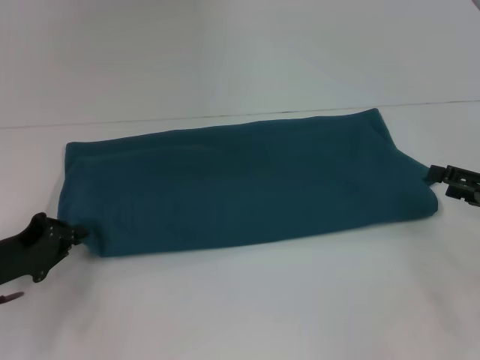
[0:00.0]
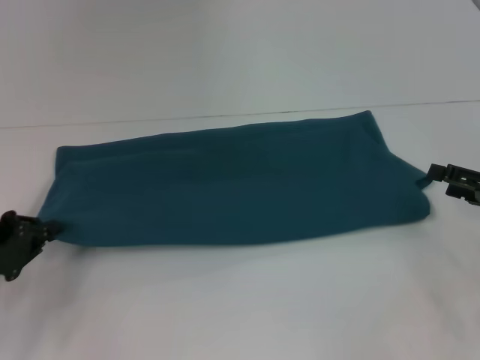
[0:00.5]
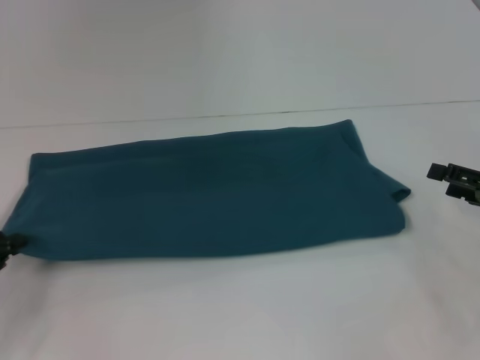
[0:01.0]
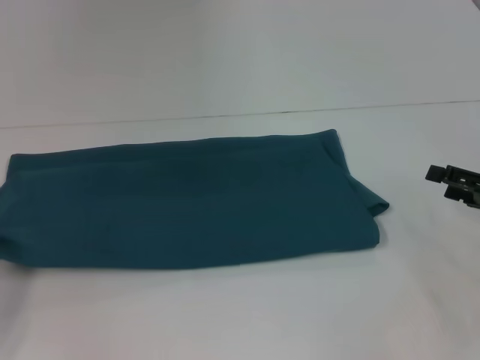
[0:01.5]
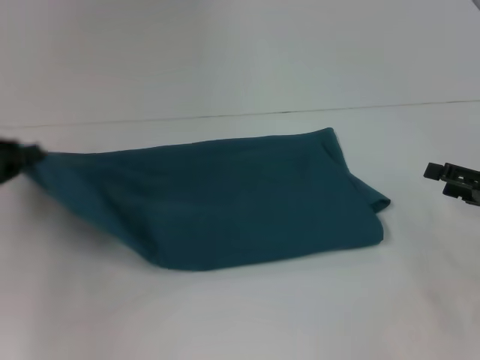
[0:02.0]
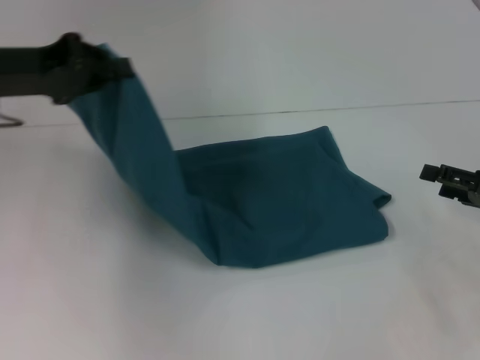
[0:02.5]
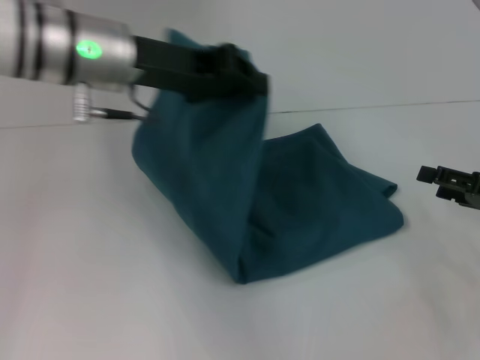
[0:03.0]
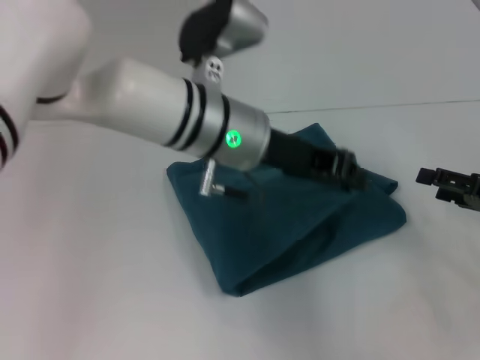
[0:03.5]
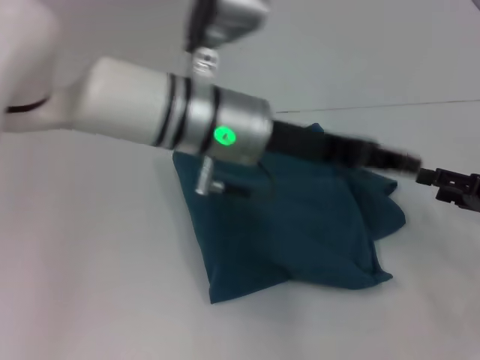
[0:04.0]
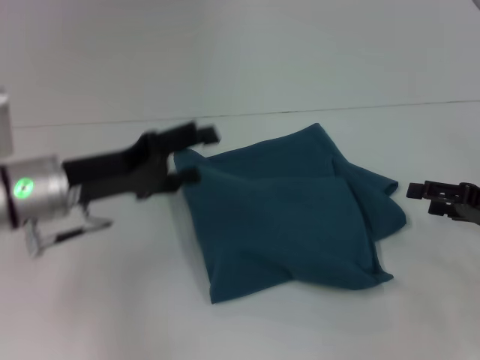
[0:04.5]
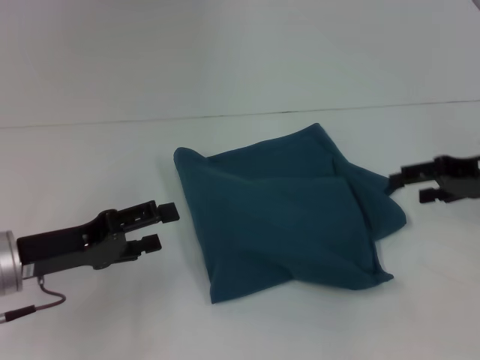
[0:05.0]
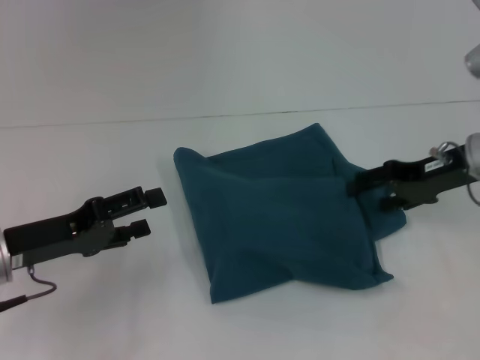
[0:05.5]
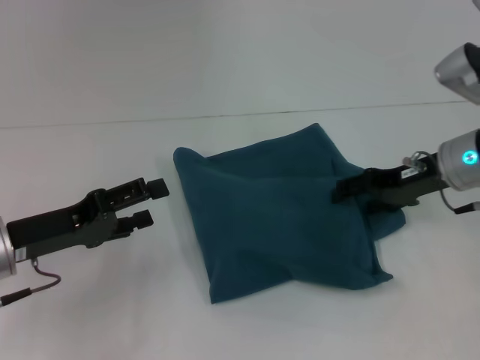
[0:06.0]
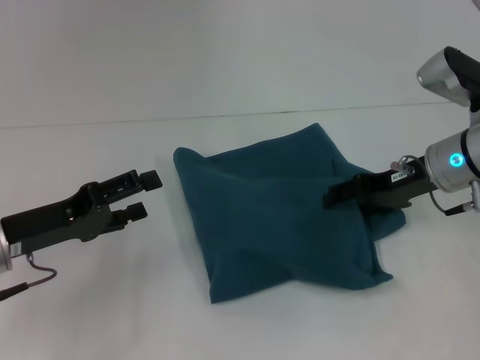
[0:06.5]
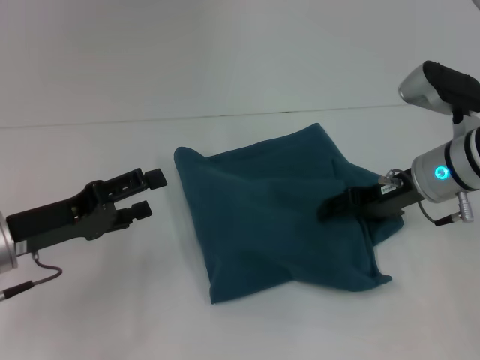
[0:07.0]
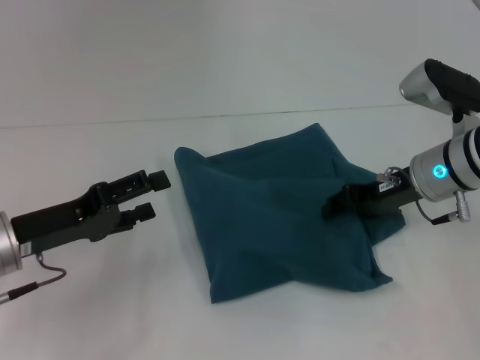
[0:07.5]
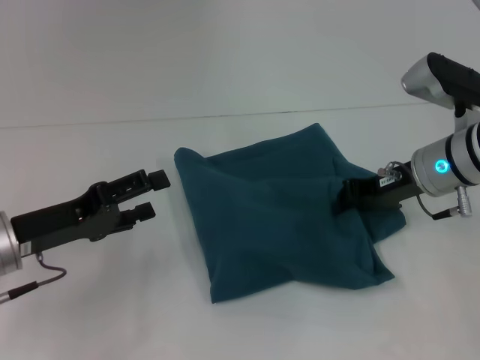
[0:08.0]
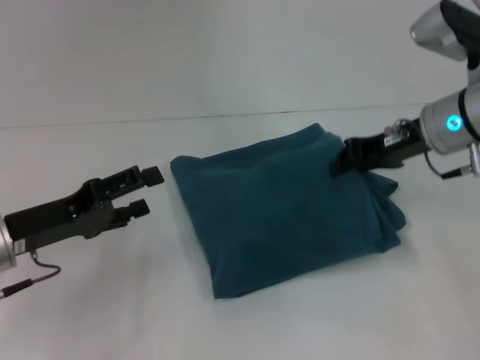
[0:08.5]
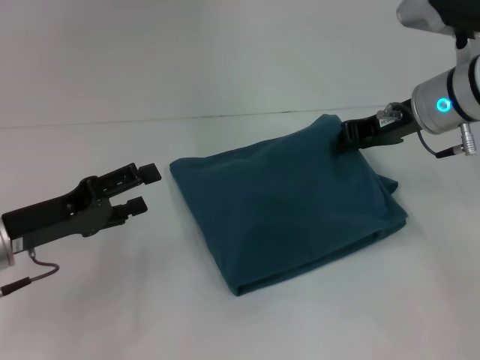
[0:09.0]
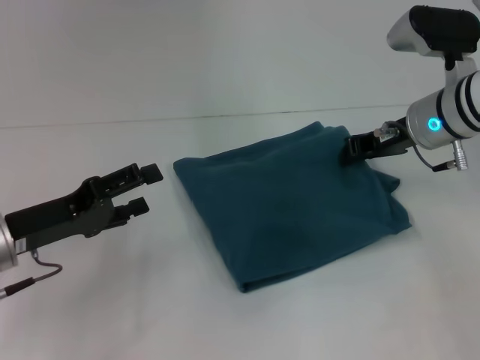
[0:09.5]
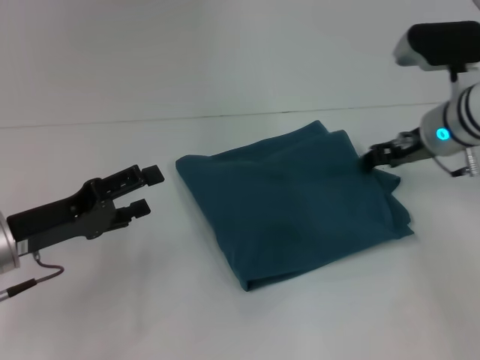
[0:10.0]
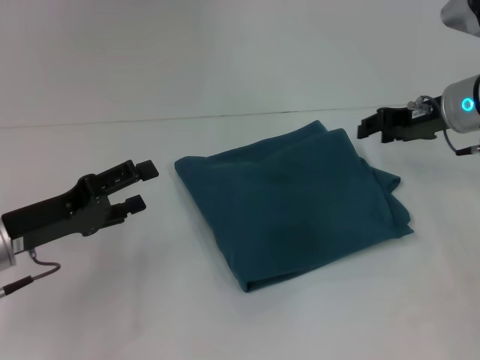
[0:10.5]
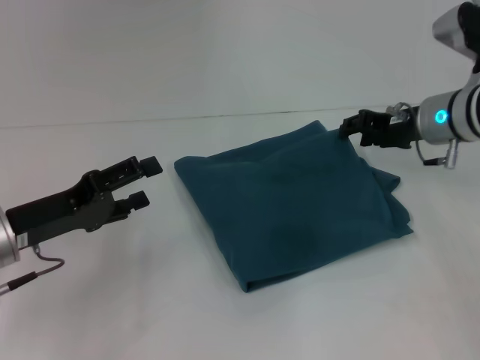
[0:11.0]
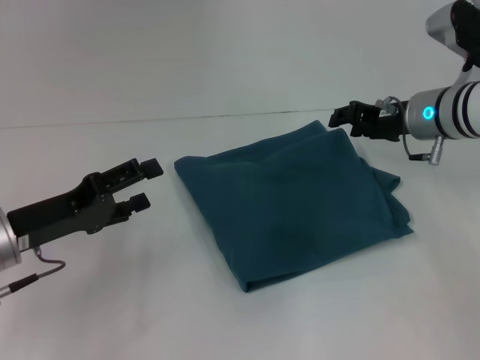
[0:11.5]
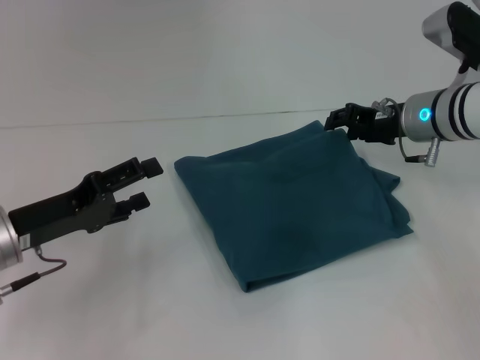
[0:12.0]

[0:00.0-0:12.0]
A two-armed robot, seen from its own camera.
Step, 0:00.0 to 0:04.0: Fold the clothes to the left.
0:00.0 to 0:02.0: The left gripper heads upward, covering some 10 cm.
0:02.0 to 0:04.0: The left gripper moves to the right, approximately 30 cm, and opens its fingers.
0:04.0 to 0:06.0: The right gripper heads to the left and forward, covering some 15 cm. The left gripper travels to the left and downward by some 25 cm, and opens up.
0:06.0 to 0:08.0: The right gripper closes its fingers.

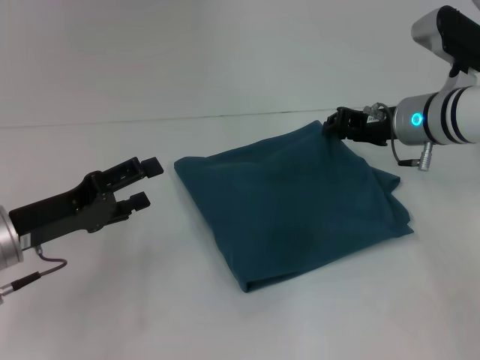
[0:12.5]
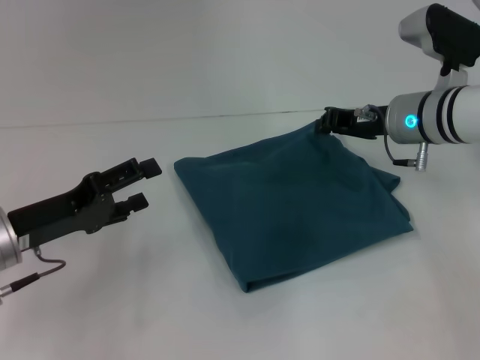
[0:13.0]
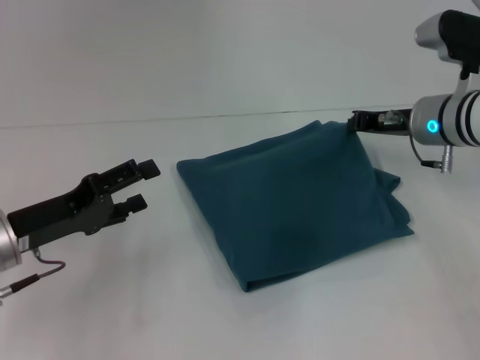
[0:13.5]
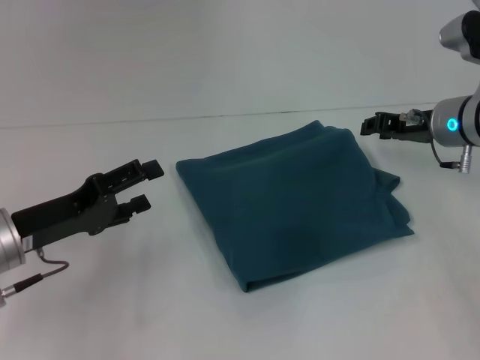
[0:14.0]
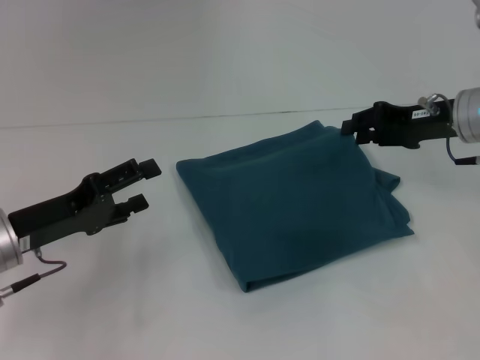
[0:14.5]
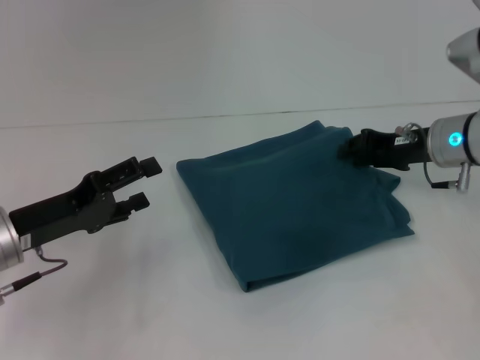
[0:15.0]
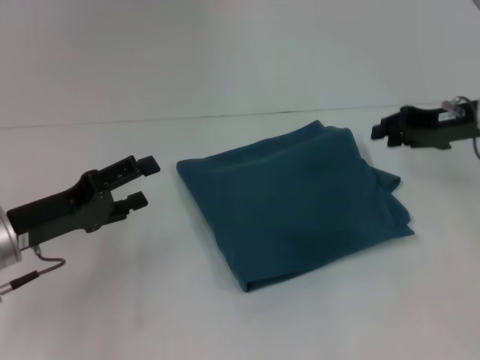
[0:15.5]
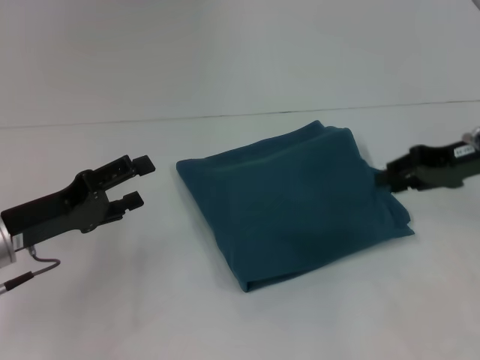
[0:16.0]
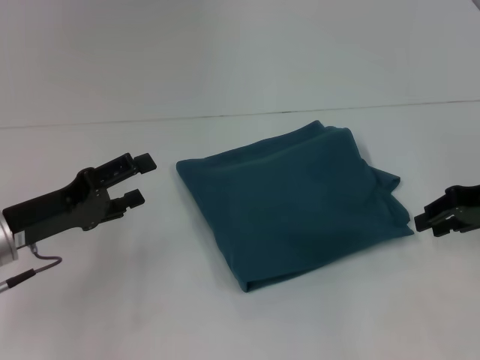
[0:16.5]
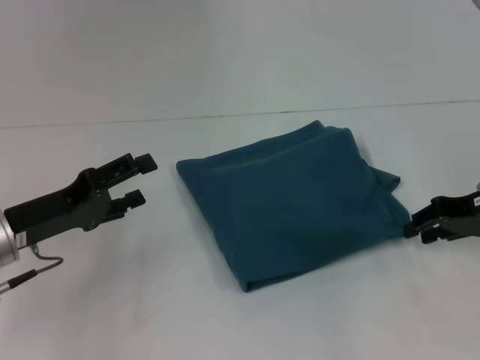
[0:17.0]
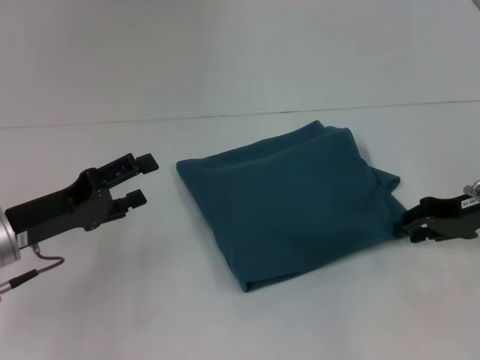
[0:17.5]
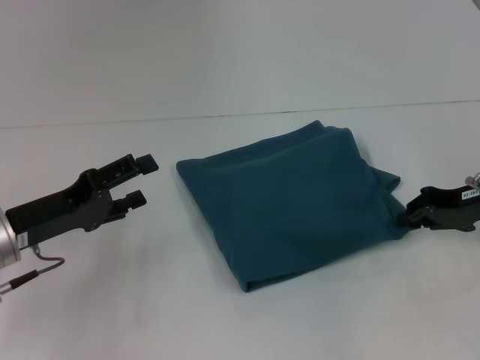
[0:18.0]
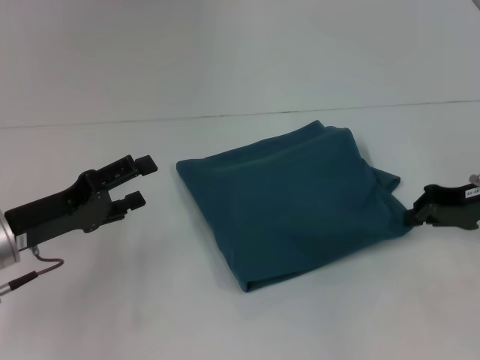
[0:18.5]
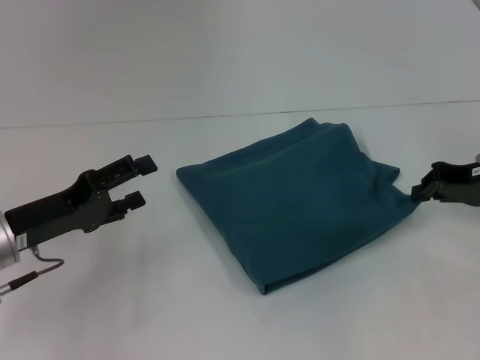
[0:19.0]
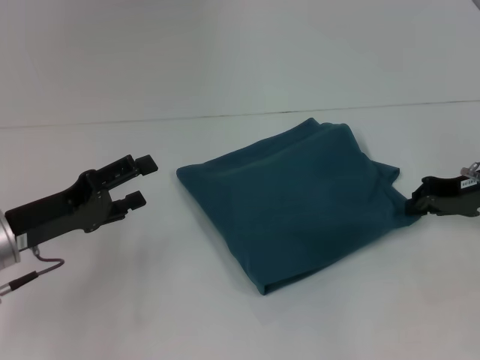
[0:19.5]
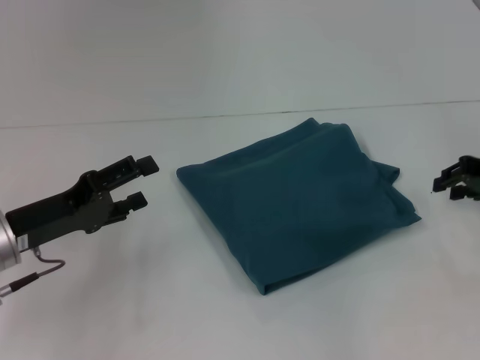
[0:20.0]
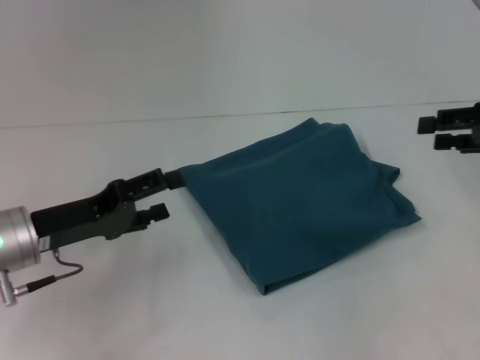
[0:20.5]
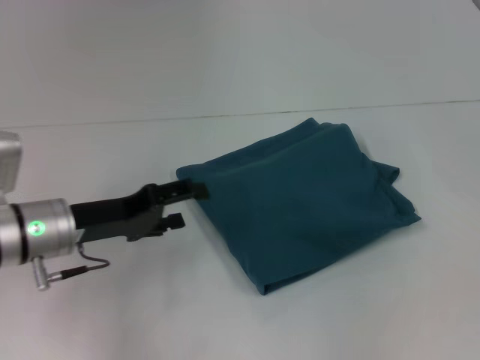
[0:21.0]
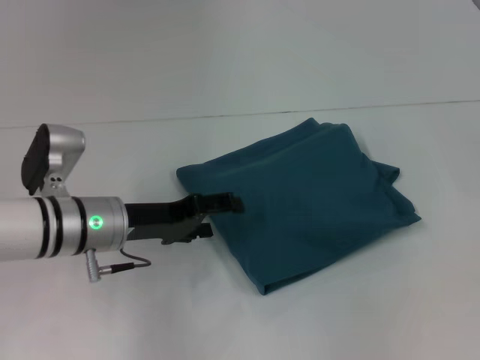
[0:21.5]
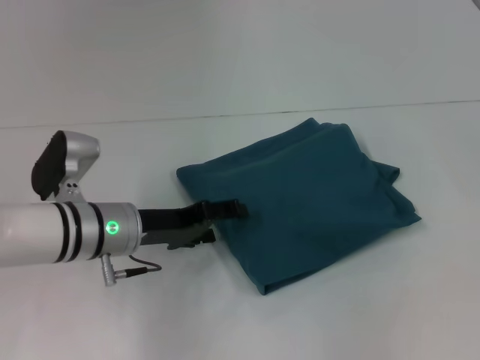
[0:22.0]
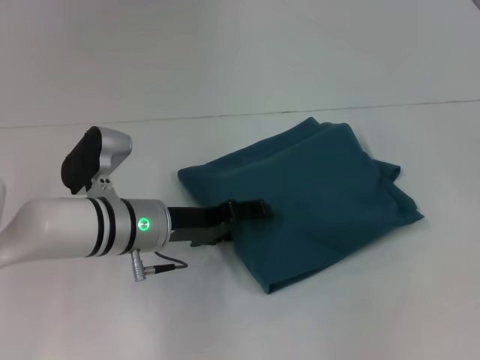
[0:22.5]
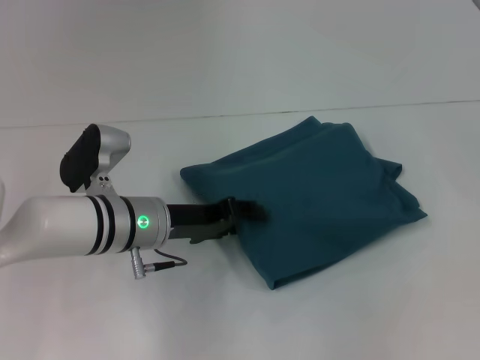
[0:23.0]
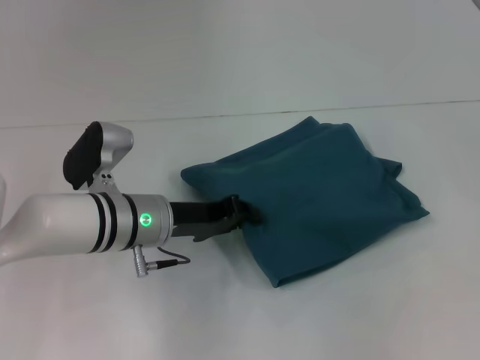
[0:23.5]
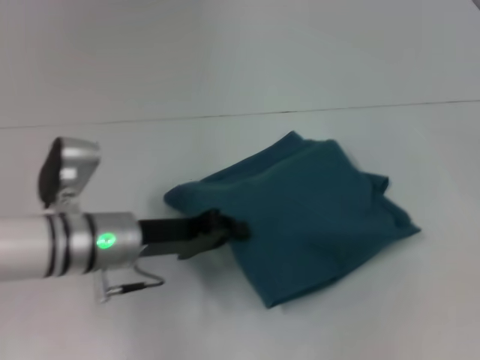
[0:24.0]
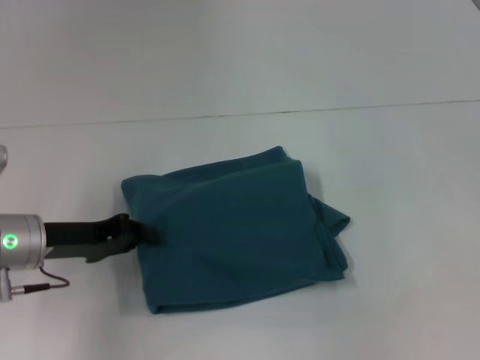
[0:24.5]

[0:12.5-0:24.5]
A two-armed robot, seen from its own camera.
0:12.5 to 0:14.5: The right gripper shifts roughly 5 cm to the right.
0:14.5 to 0:16.5: The right gripper goes roughly 10 cm to the right and backward.
0:16.5 to 0:18.5: The right gripper closes.
0:18.5 to 0:20.5: The right gripper heads upward, covering some 5 cm, and opens up.
0:20.5 to 0:22.5: The left gripper travels to the right by some 10 cm; the right gripper is displaced to the right by roughly 10 cm, and opens its fingers.
0:22.5 to 0:24.5: The left gripper goes approximately 10 cm to the left, and closes its fingers.

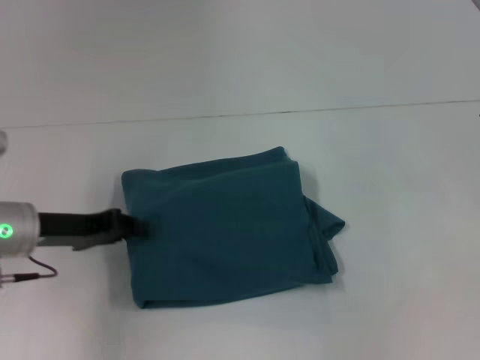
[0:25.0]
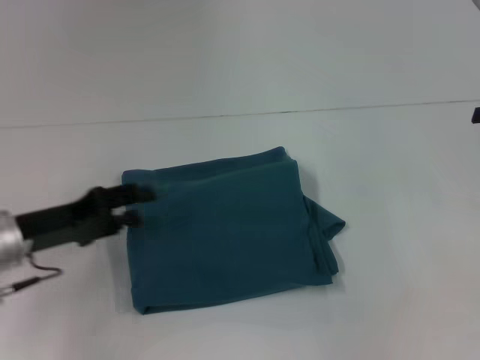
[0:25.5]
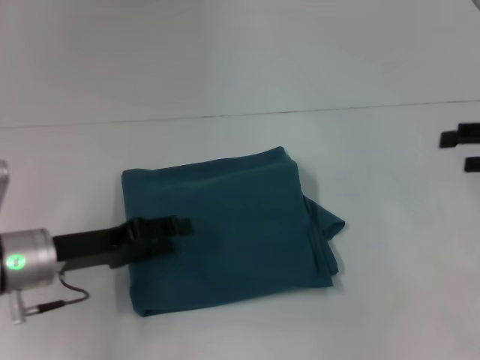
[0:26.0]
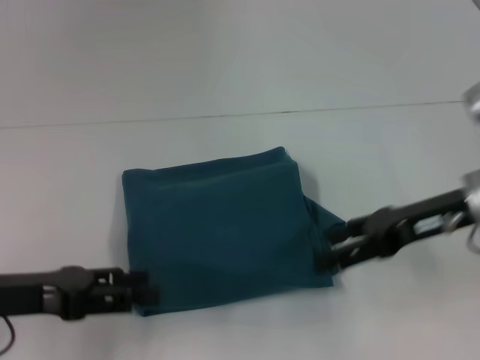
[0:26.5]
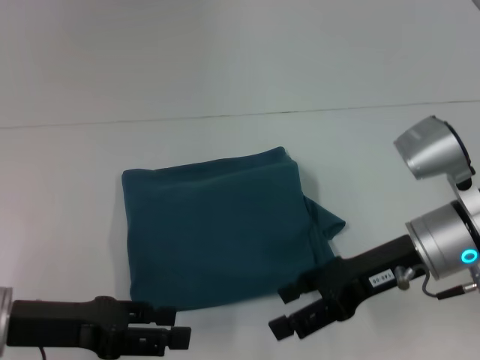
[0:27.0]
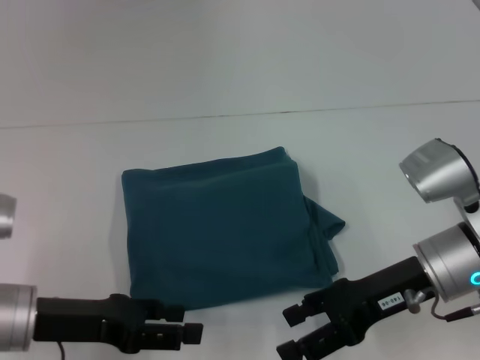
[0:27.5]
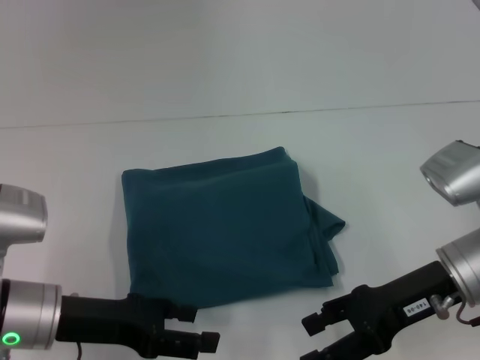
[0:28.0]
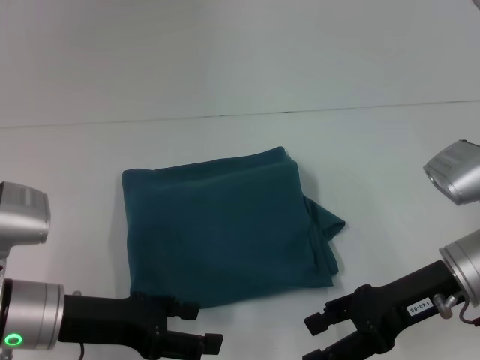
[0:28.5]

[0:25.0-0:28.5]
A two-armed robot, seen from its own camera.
0:25.0 to 0:27.0: The right gripper goes roughly 20 cm to the left. The left gripper goes roughly 10 cm backward, and opens.
0:27.0 to 0:28.5: The grippers move only a little.
